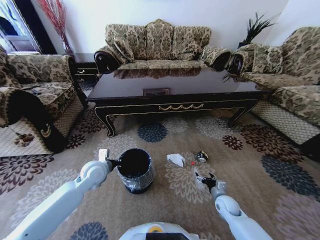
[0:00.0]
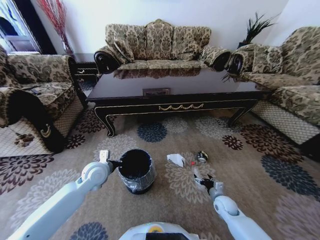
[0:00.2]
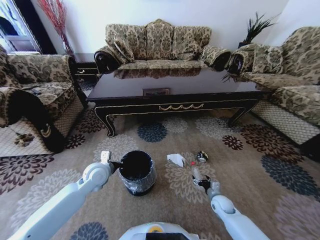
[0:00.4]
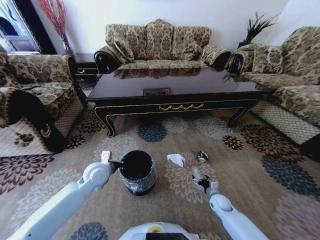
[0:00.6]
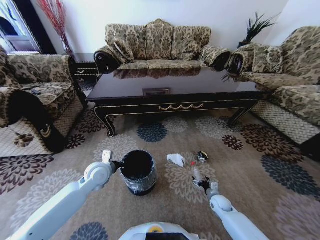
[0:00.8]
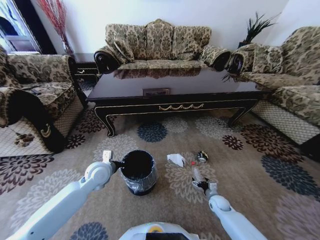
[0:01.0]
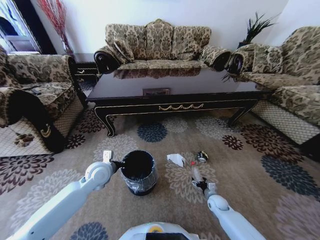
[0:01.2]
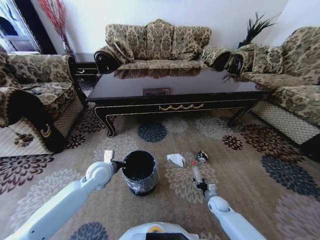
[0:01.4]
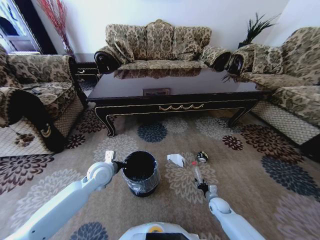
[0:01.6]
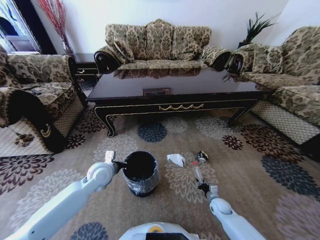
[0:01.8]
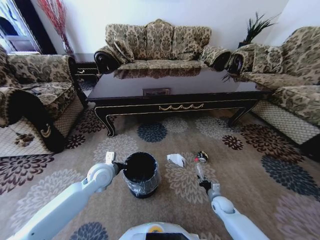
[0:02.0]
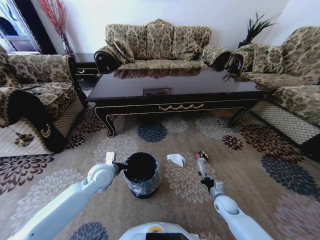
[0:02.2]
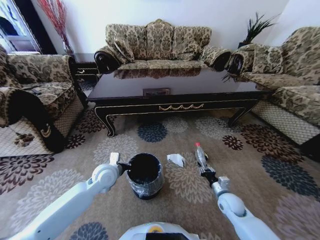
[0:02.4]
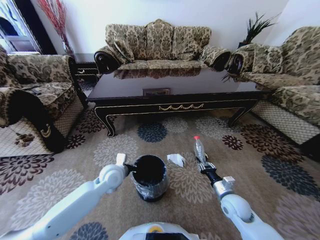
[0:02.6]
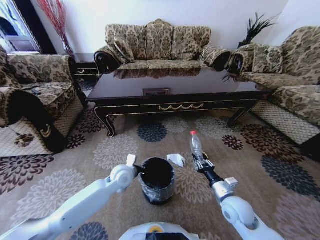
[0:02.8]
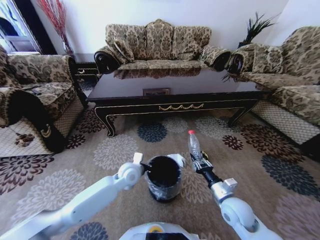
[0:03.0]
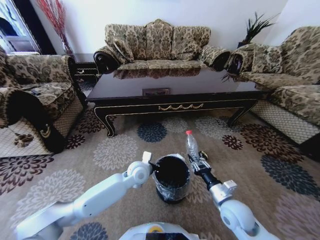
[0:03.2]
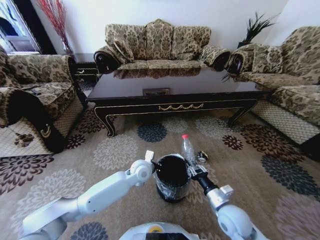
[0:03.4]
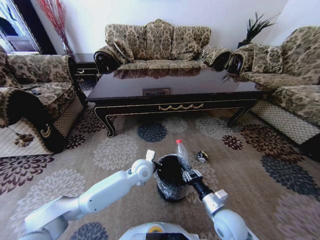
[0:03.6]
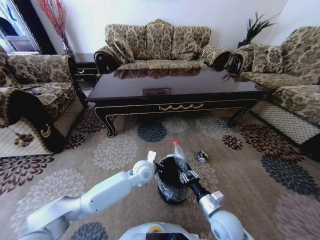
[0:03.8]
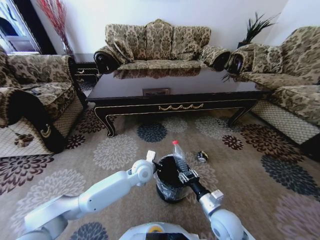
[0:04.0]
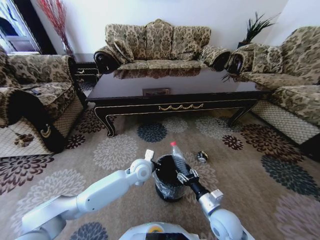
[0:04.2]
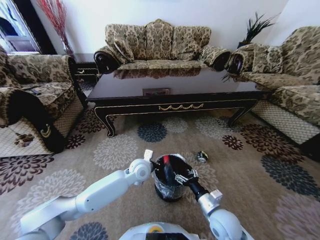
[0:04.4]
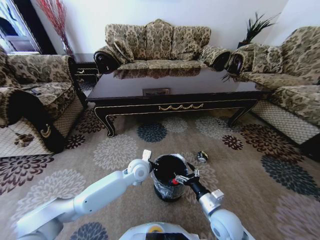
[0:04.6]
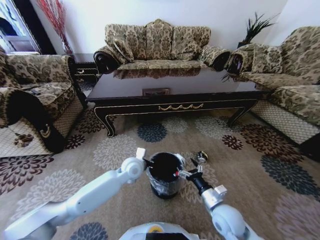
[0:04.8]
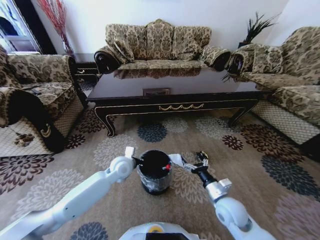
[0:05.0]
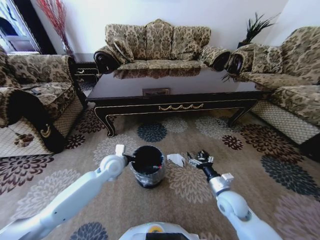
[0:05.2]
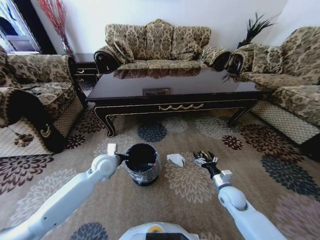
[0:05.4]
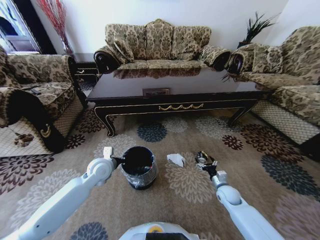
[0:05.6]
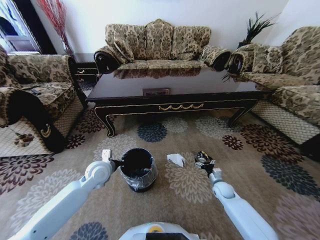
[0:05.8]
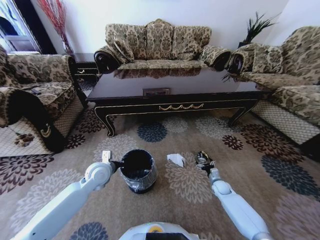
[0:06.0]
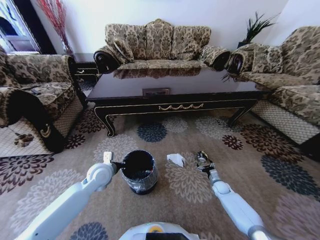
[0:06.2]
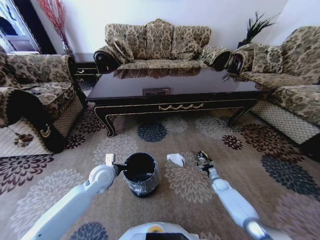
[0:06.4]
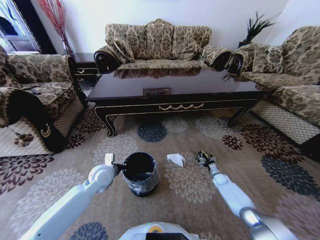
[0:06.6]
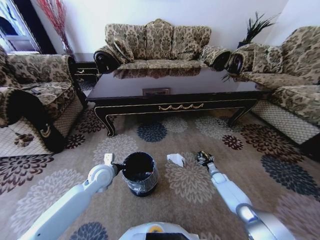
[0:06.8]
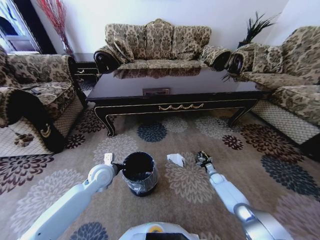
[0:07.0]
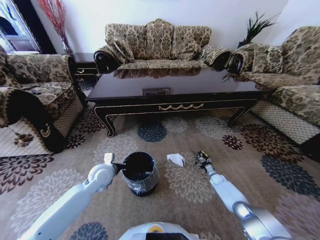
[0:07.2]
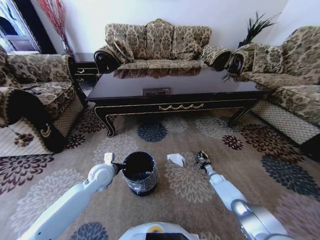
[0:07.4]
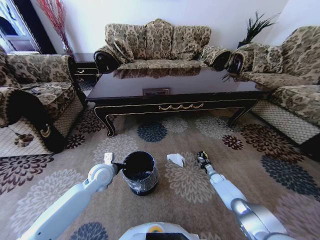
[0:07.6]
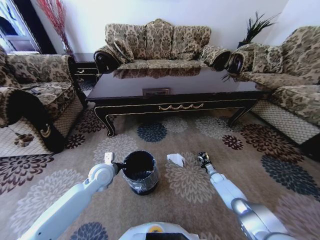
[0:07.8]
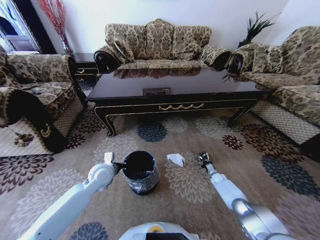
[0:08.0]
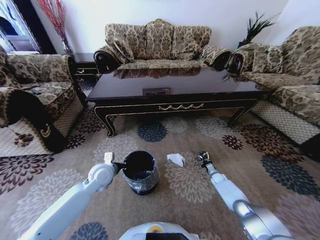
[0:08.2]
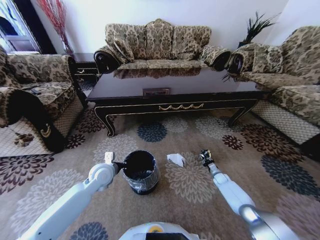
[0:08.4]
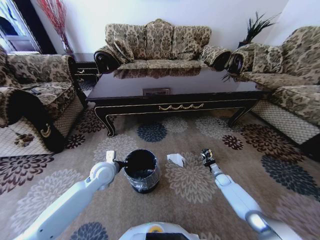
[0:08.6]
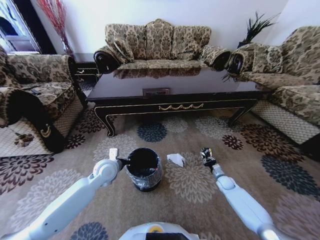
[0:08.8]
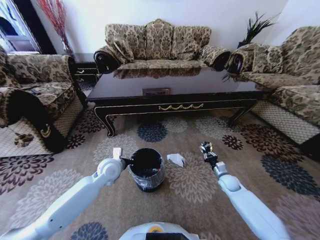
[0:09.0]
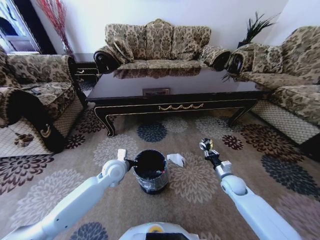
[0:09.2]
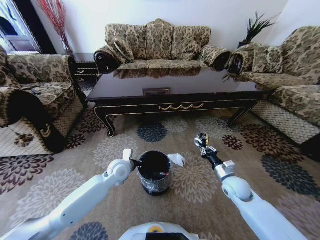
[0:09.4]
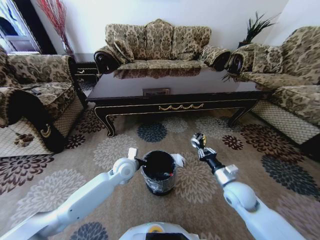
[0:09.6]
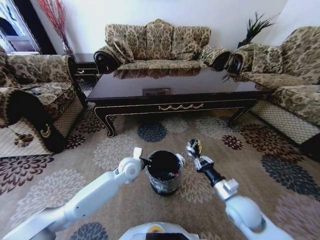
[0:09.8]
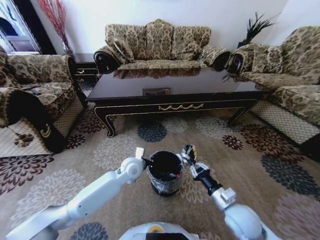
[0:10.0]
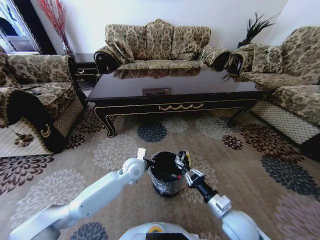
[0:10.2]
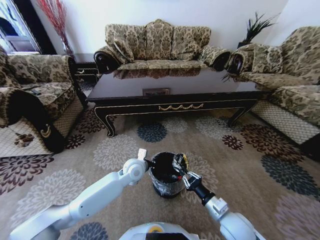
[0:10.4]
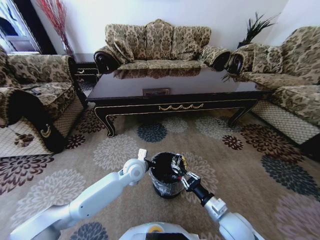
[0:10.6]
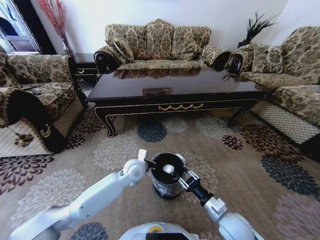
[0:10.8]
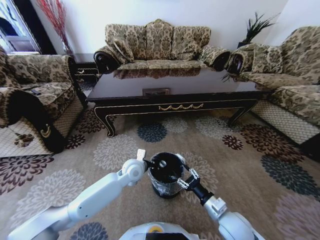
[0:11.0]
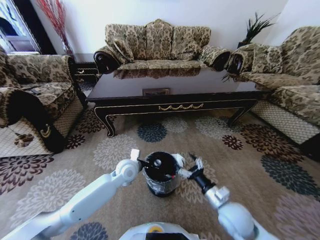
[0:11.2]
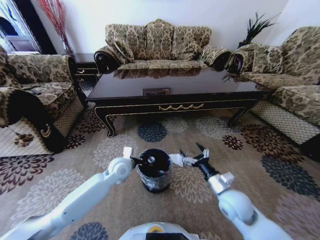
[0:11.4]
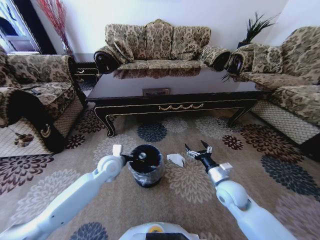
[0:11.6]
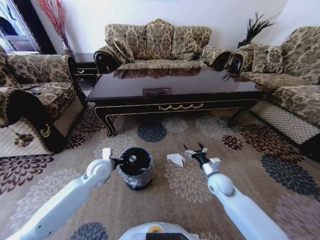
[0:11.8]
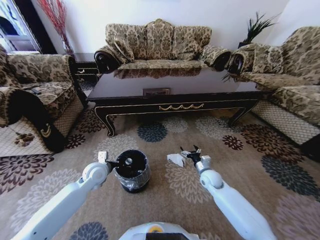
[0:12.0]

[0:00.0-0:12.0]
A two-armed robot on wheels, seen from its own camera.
Task of the whole recording: Move to the front of the table and pick up the trash from the floor, then place it into the trash bin.
0:00.0 to 0:01.6: The right gripper heads downward, covering about 10 cm, and closes up.
0:01.6 to 0:03.0: The right gripper moves upward, roughly 20 cm; the left gripper heads to the right, covering roughly 10 cm.
0:03.0 to 0:04.4: The right gripper ends up some 5 cm from where it was, and opens up.
0:04.4 to 0:06.0: The right gripper is displaced forward, downward and to the right by some 30 cm. Meanwhile the left gripper goes some 15 cm to the left.
0:06.0 to 0:07.6: The right gripper goes roughly 10 cm forward and downward, and closes.
0:07.6 to 0:09.0: The right gripper is displaced upward and backward by about 15 cm, and closes its fingers.
0:09.0 to 0:10.4: The left gripper is displaced to the right by about 10 cm; the right gripper heads backward, to the left and upward, covering approximately 25 cm.
0:10.4 to 0:12.0: The right gripper heads forward, covering approximately 20 cm, and opens up, while the left gripper goes about 15 cm to the left.

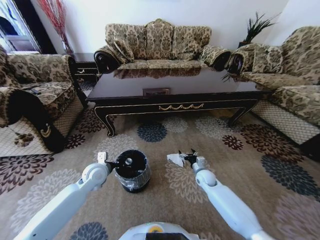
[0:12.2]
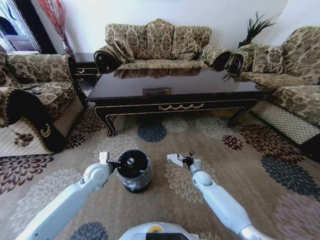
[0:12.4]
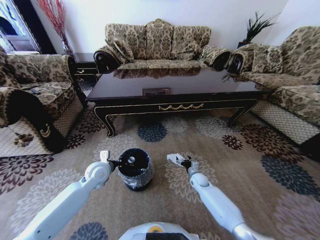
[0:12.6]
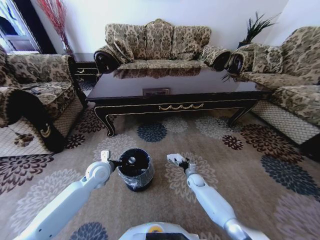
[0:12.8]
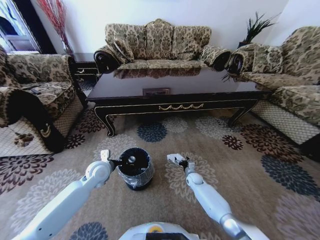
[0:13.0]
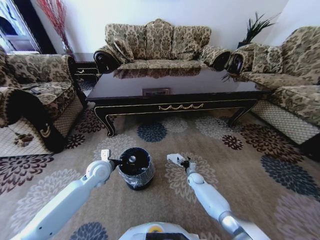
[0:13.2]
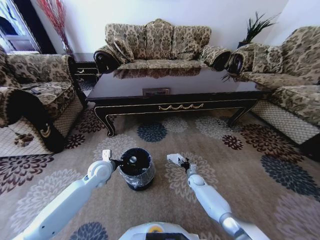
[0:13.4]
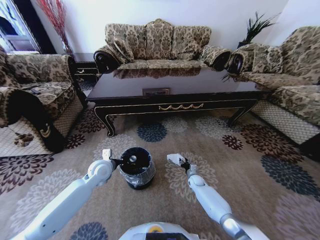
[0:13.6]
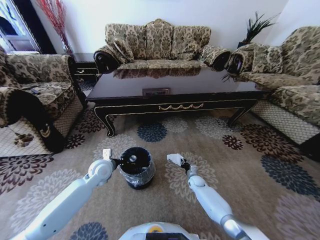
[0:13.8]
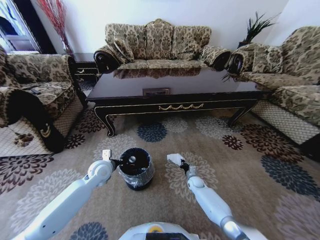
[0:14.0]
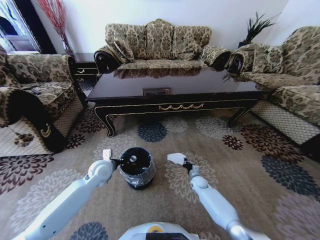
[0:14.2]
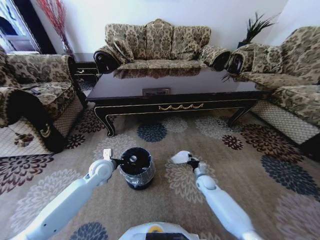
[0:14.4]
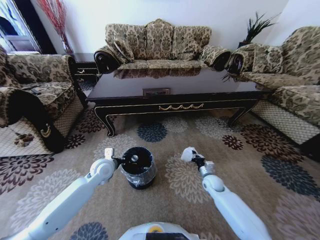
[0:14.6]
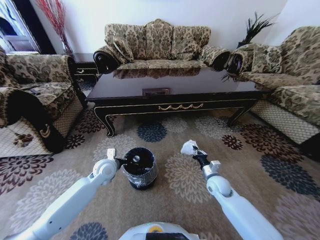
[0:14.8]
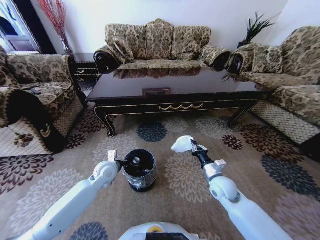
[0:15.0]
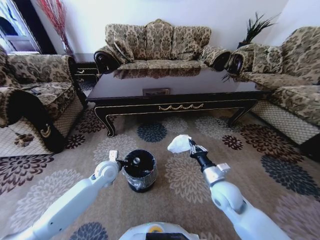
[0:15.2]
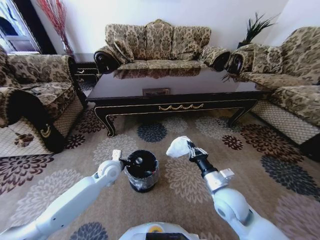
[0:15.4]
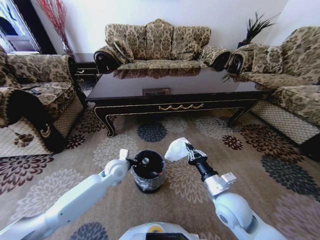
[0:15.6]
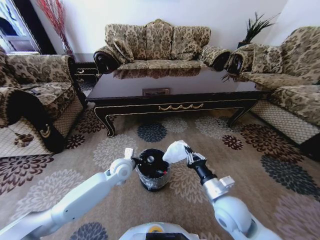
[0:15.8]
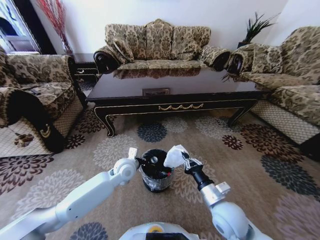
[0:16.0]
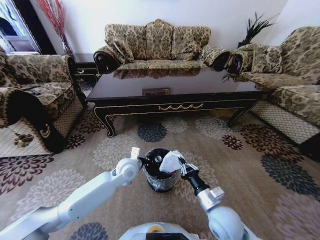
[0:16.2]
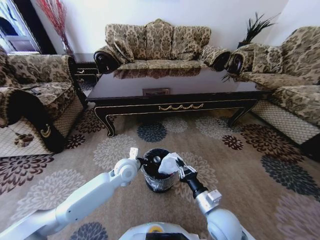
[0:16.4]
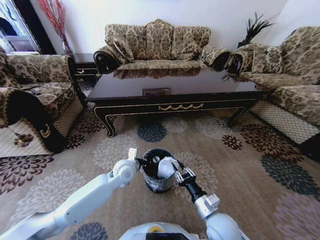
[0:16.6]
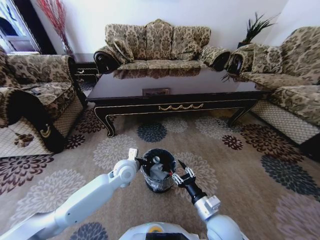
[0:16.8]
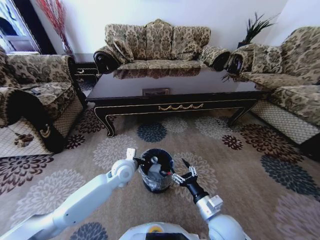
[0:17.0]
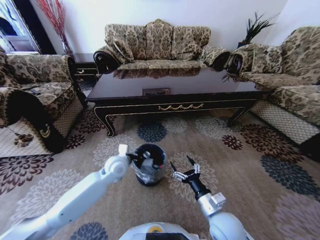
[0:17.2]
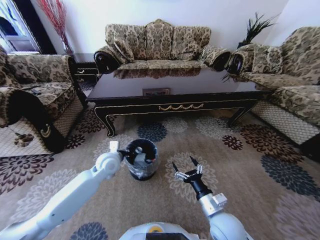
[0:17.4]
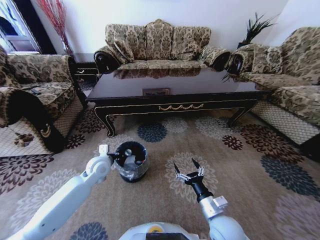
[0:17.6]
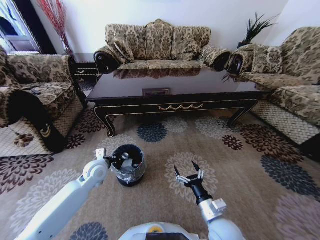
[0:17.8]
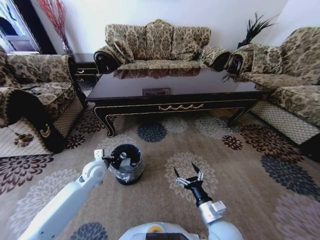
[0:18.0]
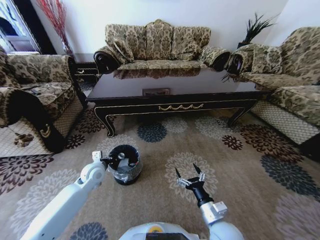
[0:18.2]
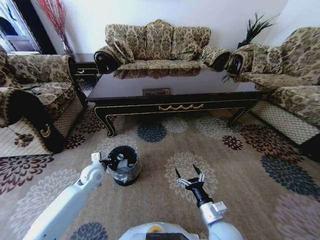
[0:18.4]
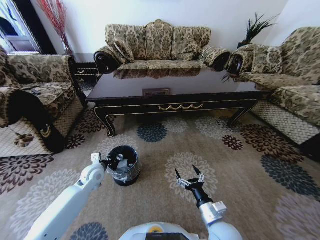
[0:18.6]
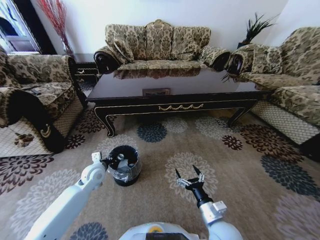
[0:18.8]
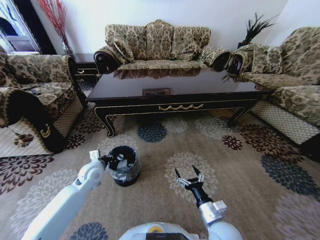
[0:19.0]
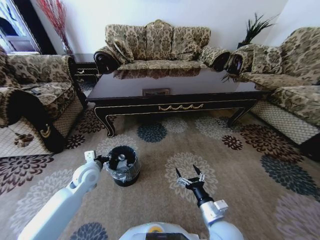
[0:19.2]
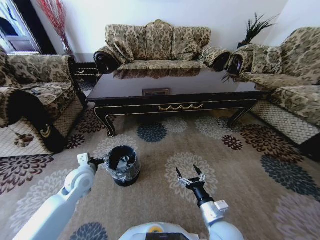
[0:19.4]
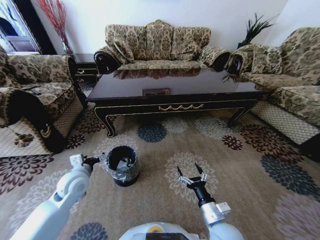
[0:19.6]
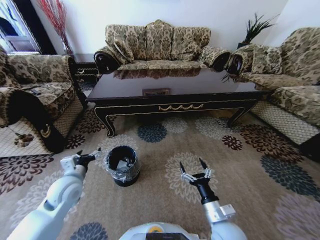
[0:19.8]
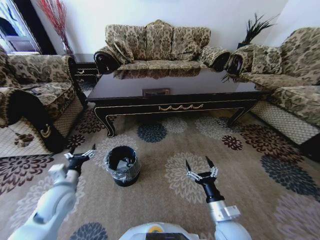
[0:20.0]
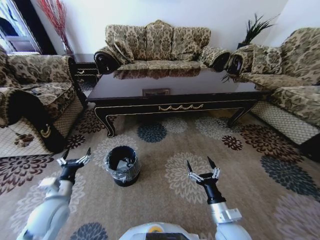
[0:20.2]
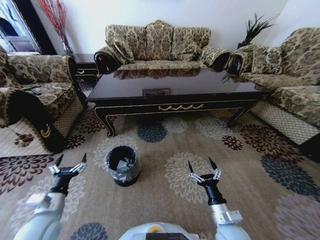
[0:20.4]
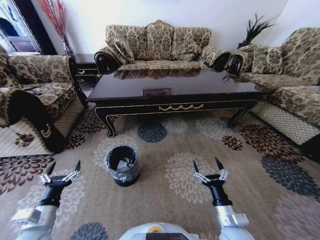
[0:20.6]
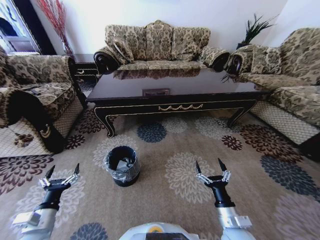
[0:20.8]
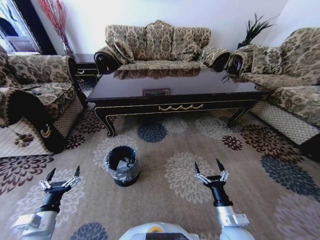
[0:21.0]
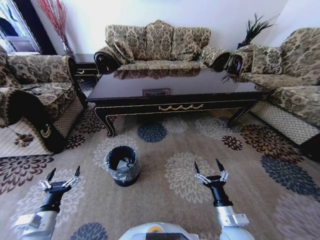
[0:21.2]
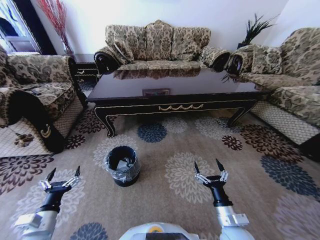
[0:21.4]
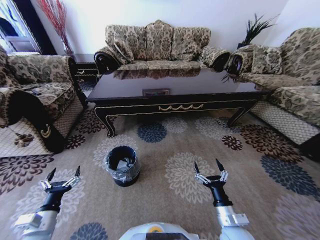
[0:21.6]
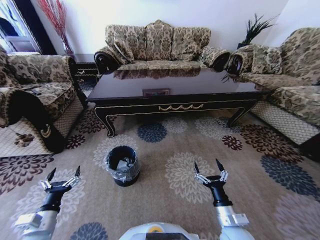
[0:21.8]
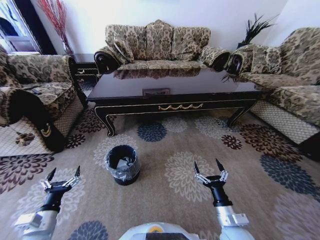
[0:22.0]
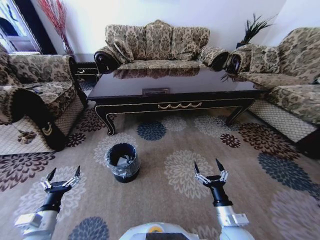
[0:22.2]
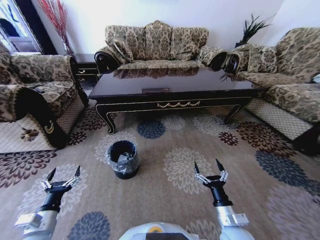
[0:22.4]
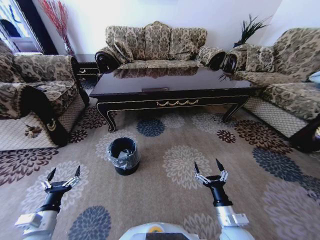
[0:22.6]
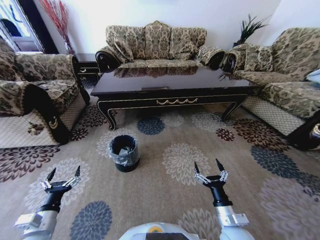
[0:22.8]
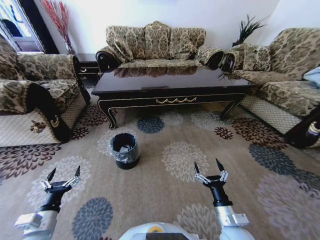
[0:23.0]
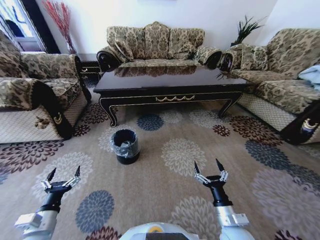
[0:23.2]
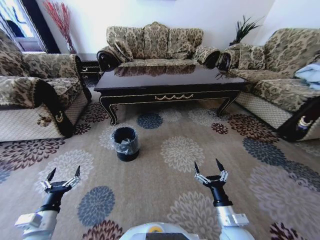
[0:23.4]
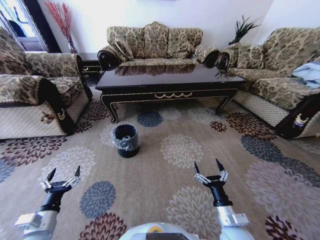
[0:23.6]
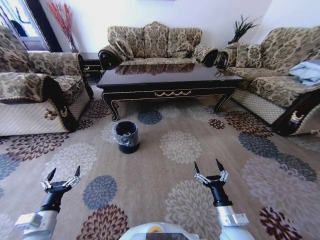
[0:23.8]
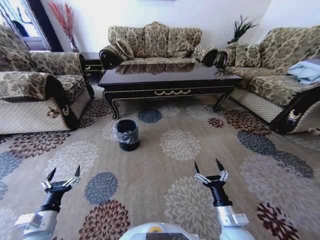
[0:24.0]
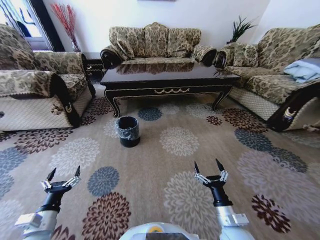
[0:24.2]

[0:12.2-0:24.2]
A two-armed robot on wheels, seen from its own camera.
Task of the whole recording: Move to the front of the table and pick up the trash from the floor, then place it into the trash bin.
0:12.2 to 0:13.8: The right gripper goes some 10 cm downward, and closes.
0:13.8 to 0:15.2: The right gripper goes about 30 cm upward and backward.
0:15.2 to 0:16.6: The left gripper shifts approximately 10 cm to the right; the right gripper heads backward, covering roughly 10 cm.
0:16.6 to 0:18.2: The right gripper opens. The left gripper travels to the left by about 15 cm.
0:18.2 to 0:19.8: The left gripper goes about 10 cm backward and upward, and opens up.
0:19.8 to 0:21.2: The left gripper goes approximately 15 cm backward and downward.
